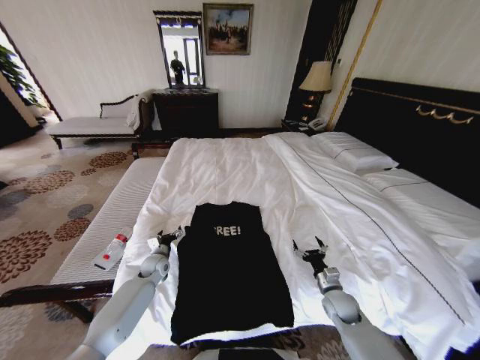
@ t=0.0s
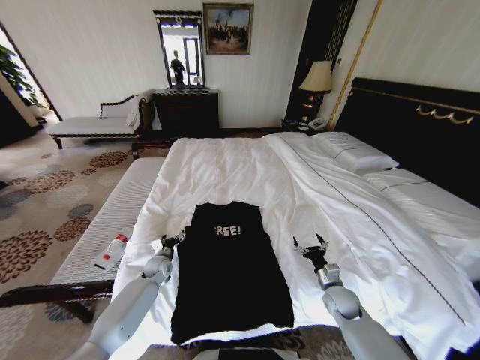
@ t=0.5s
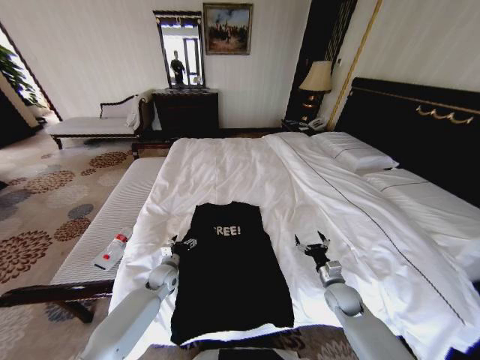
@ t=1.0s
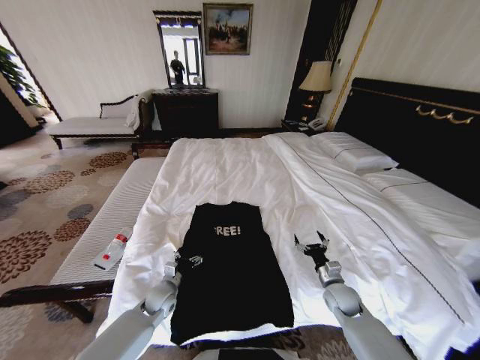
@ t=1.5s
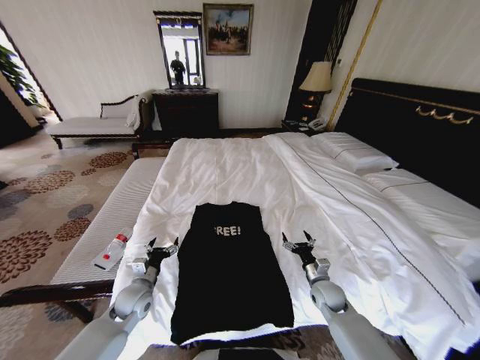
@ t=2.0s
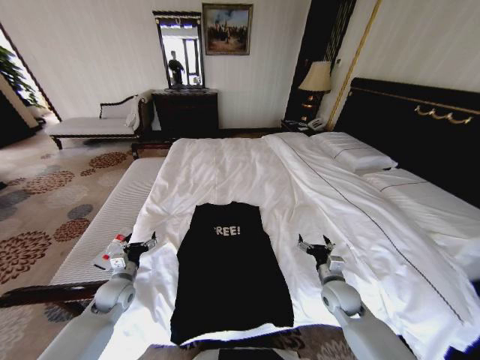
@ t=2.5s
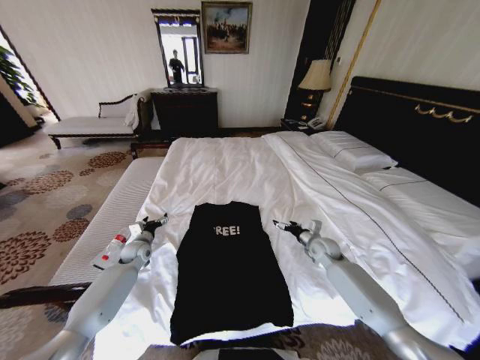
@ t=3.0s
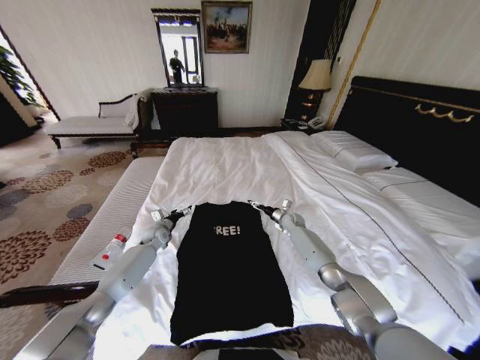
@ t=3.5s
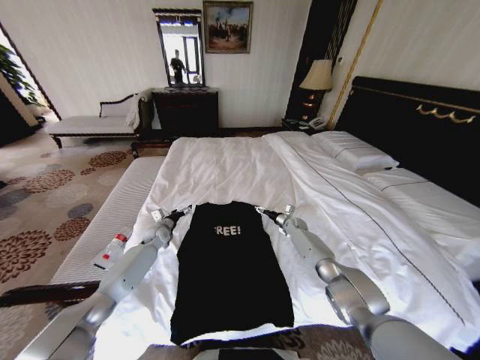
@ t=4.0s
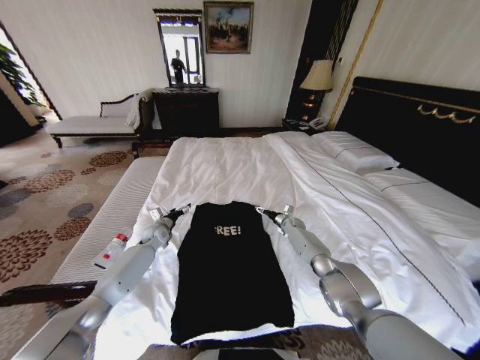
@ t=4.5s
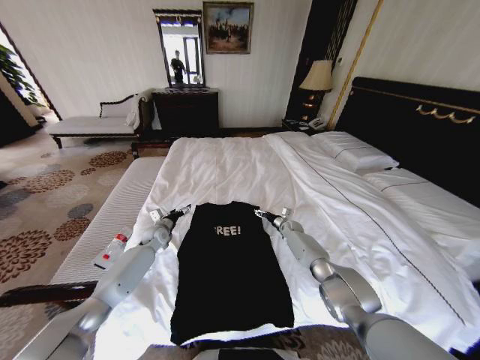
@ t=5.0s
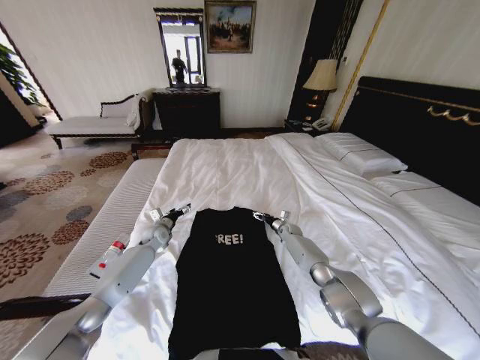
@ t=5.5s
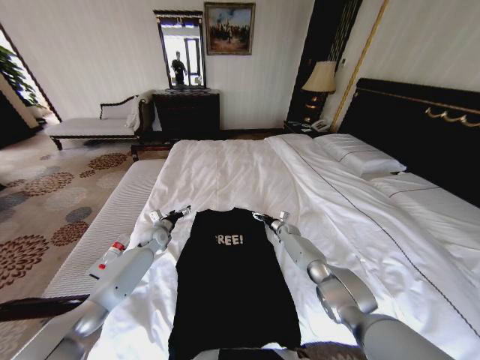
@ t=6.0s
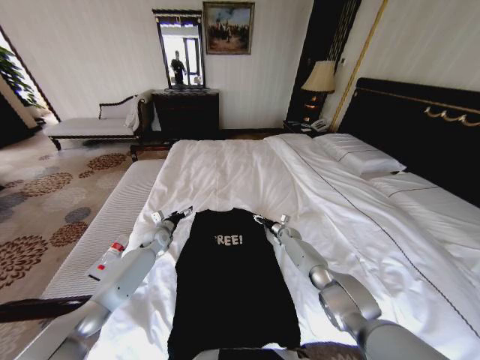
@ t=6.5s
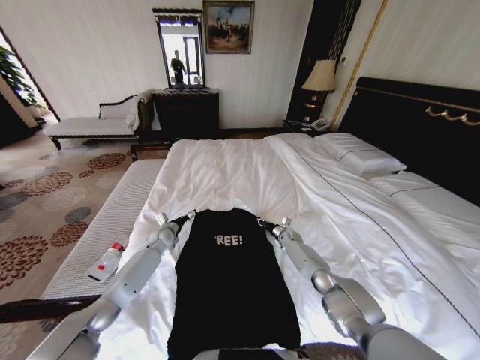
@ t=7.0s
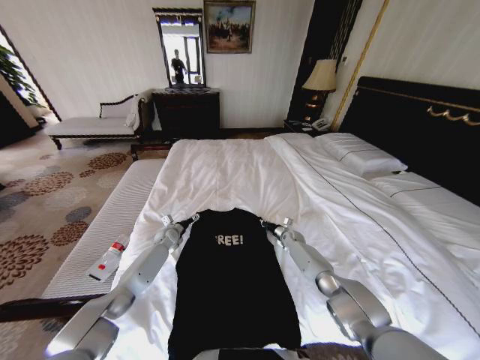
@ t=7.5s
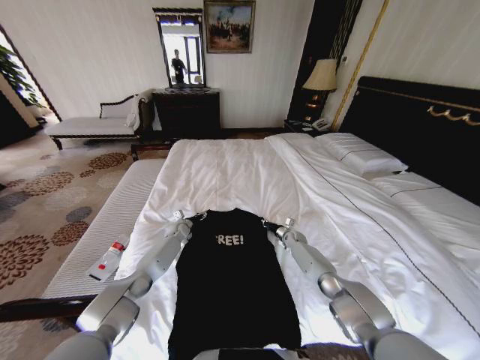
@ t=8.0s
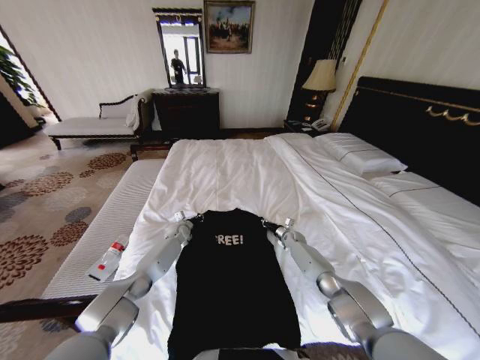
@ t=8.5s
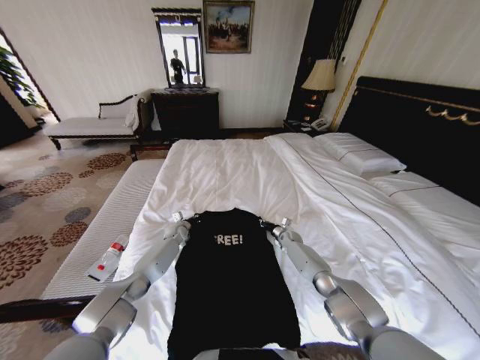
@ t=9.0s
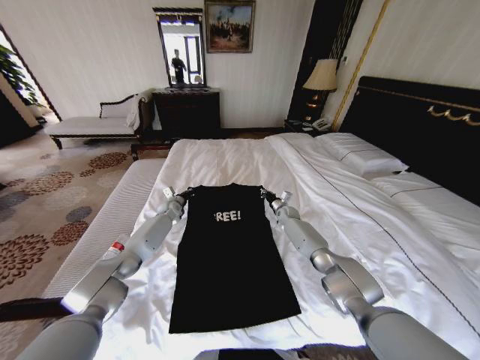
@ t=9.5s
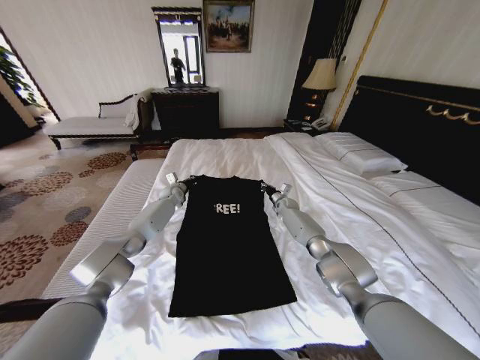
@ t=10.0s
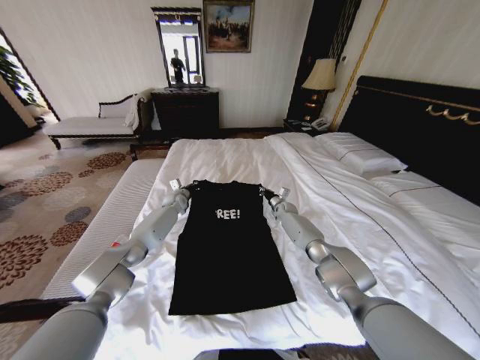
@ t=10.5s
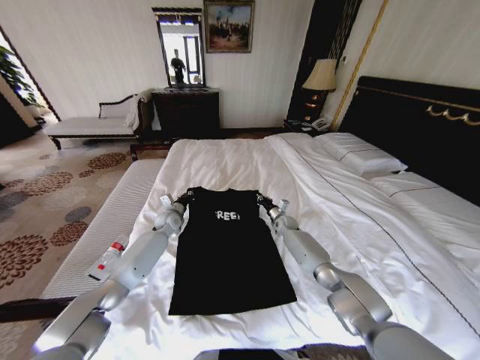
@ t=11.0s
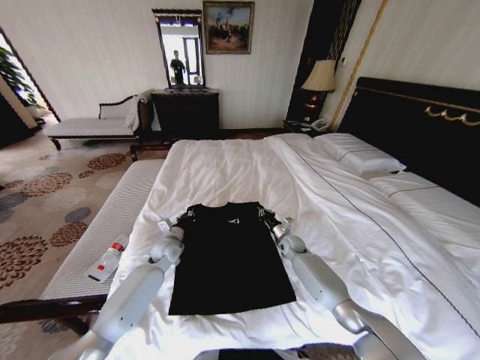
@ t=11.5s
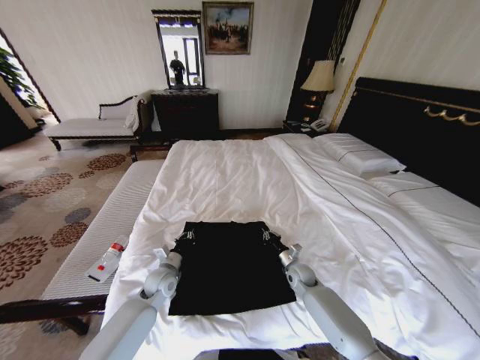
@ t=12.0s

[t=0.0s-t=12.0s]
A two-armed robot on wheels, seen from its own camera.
Task of the whole recording: Fold the clothes on the bed.
t=0.0s to t=2.0s: The left gripper moves backward and upward, about 15 cm.
t=2.0s to t=4.0s: The two grippers go roughly 25 cm forward.
t=6.0s to t=8.0s: The right gripper closes its fingers; the left gripper travels forward, downward and to the right by approximately 10 cm.
t=8.0s to t=10.0s: Both grippers travel together upward and forward, approximately 15 cm. The left gripper closes.
t=10.0s to t=12.0s: Both grippers move backward, approximately 30 cm.

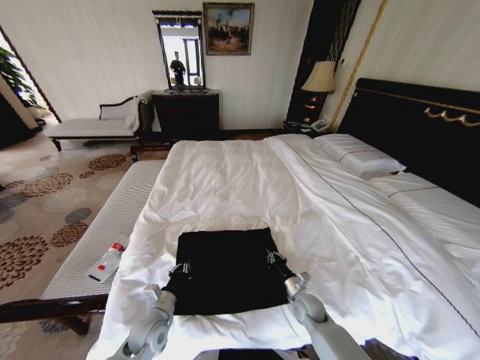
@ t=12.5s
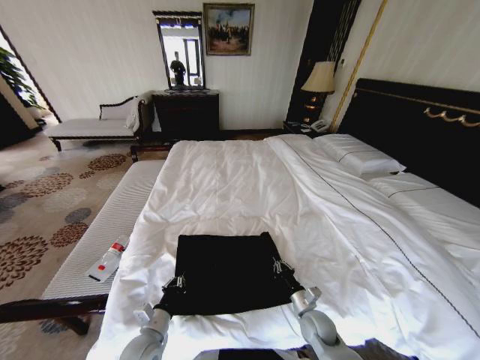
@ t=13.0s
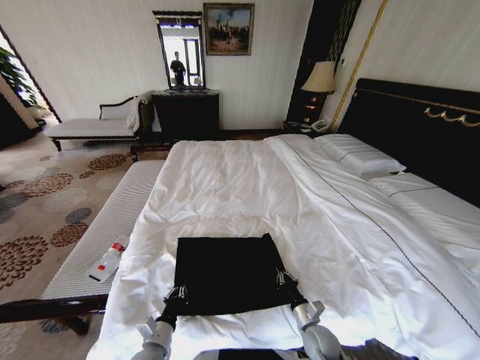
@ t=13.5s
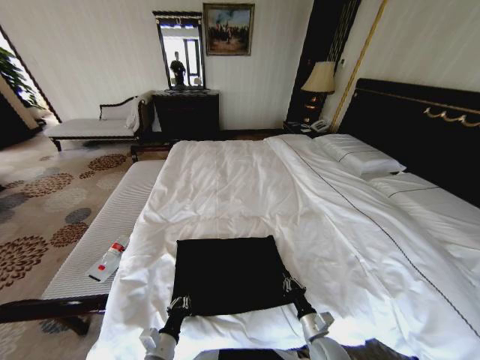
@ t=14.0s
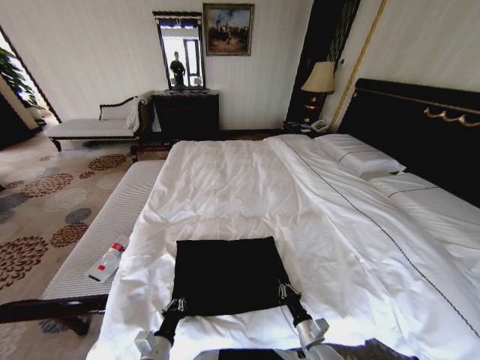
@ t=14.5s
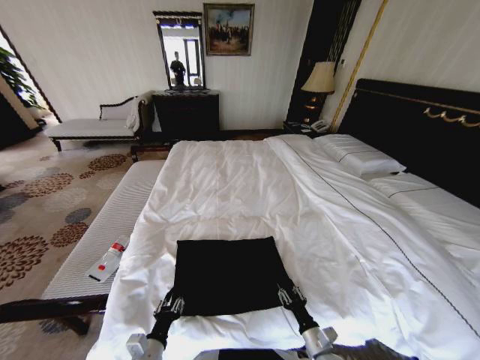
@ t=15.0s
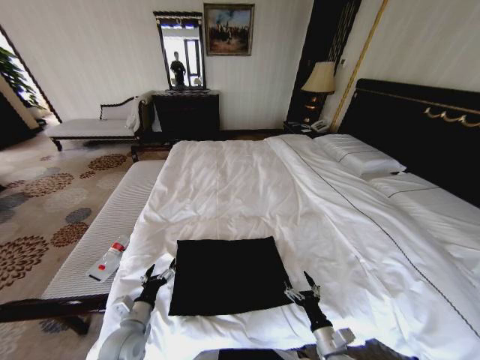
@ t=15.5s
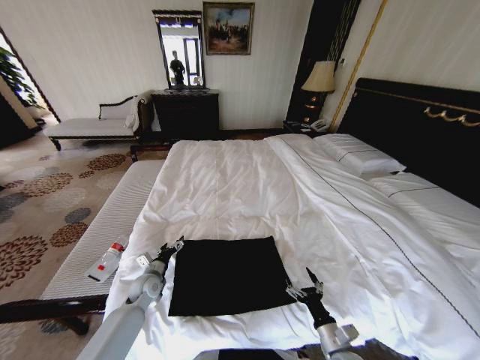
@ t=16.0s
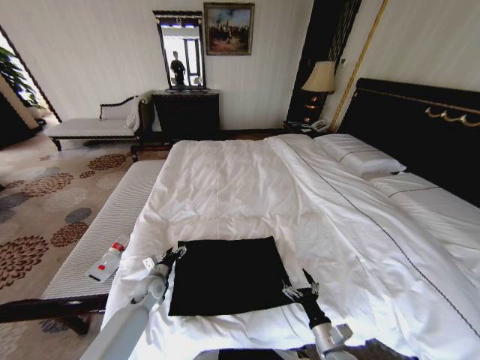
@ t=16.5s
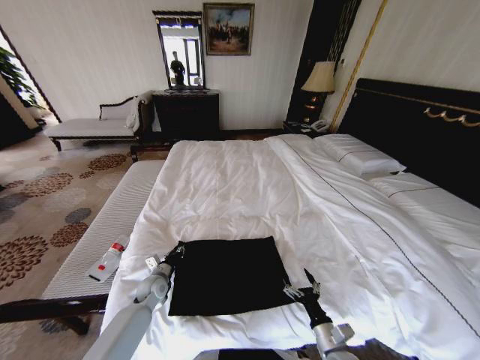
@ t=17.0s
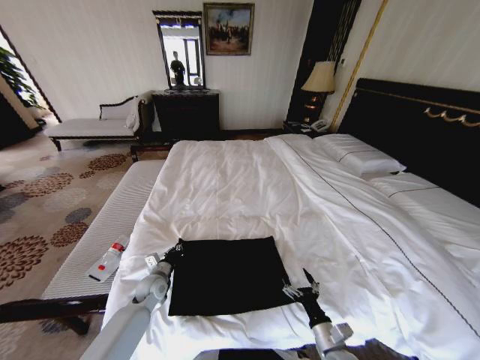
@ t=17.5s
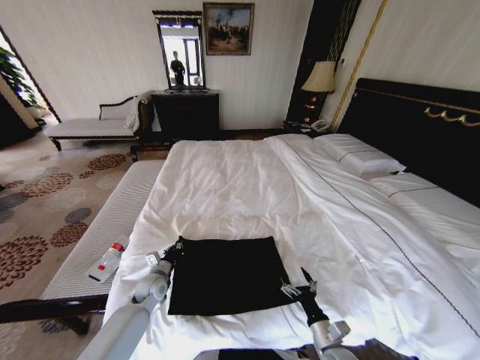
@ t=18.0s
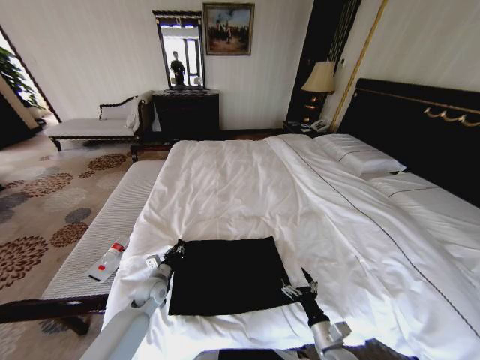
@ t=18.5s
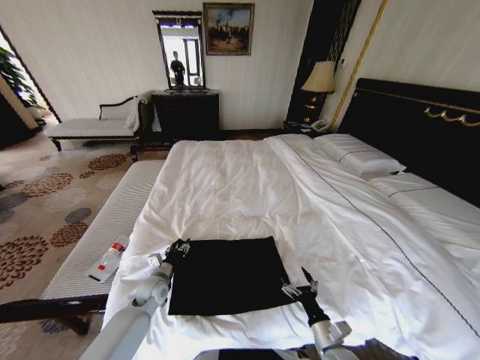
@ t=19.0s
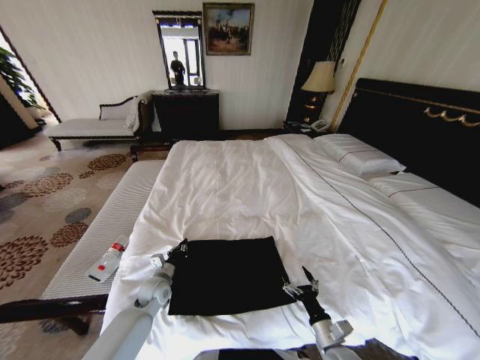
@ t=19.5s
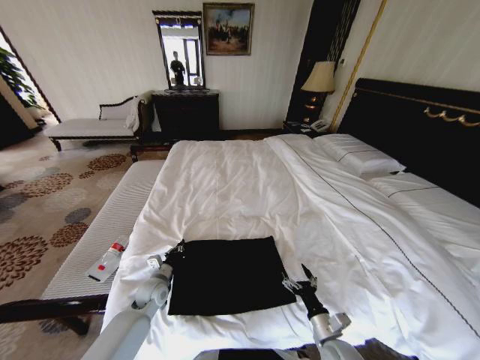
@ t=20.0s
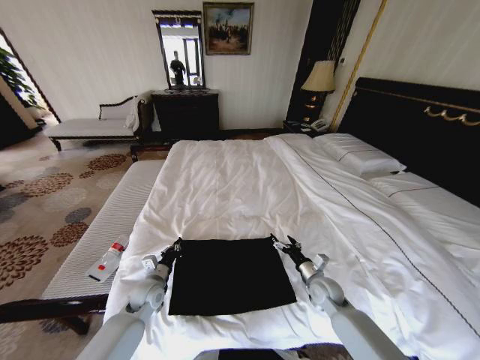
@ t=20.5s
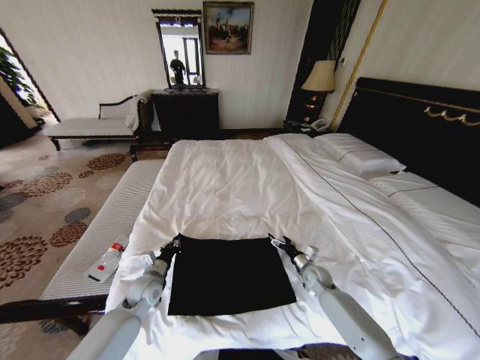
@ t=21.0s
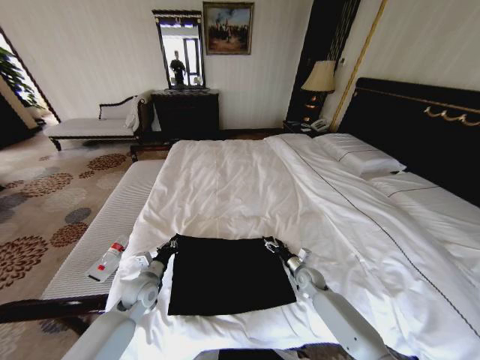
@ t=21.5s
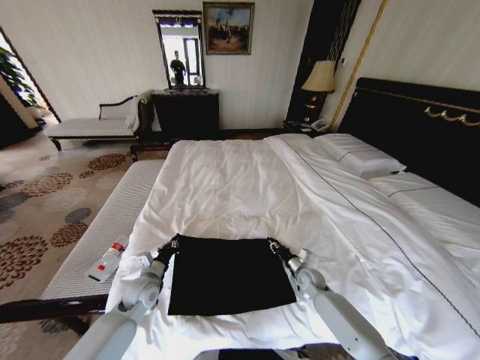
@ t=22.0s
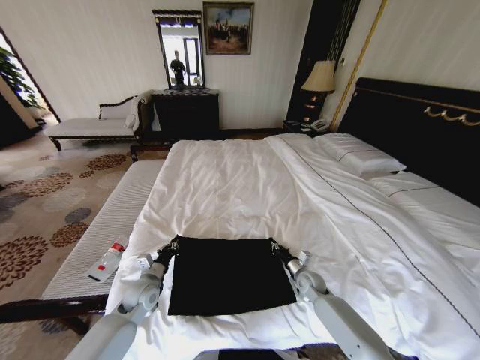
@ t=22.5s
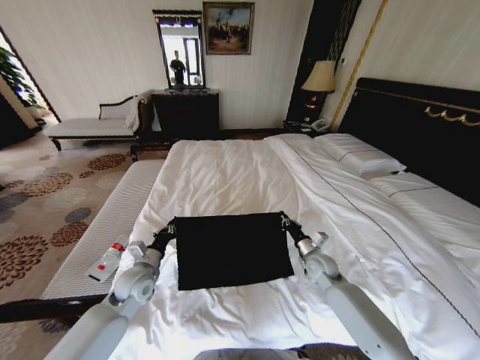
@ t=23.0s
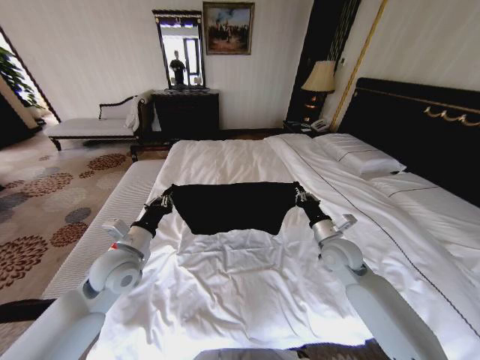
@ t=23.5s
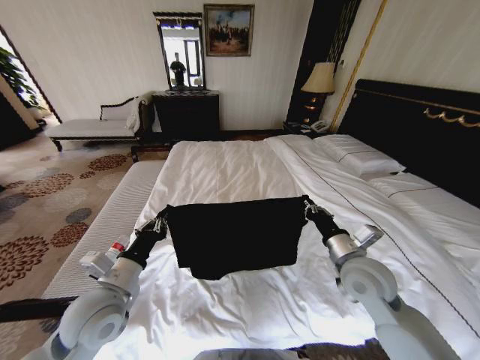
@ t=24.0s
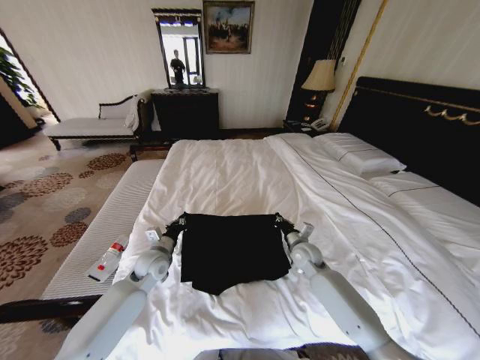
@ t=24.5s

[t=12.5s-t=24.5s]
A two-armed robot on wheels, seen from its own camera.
Task of the whole recording: Fold the clothes on the bed.
t=12.5s to t=14.5s: The two grippers go about 10 cm backward.
t=14.5s to t=16.5s: The right gripper travels upward by some 5 cm, and opens its fingers. The left gripper is displaced forward by about 25 cm, and opens.
t=16.5s to t=18.5s: The left gripper closes up.
t=18.5s to t=20.5s: The left gripper opens and closes again; the right gripper goes some 20 cm forward.
t=20.5s to t=22.5s: The right gripper is displaced downward by about 5 cm, and closes up.
t=22.5s to t=24.5s: The right gripper goes about 10 cm upward; the left gripper goes approximately 5 cm forward, and travels upward and back again, roughly 20 cm each way.

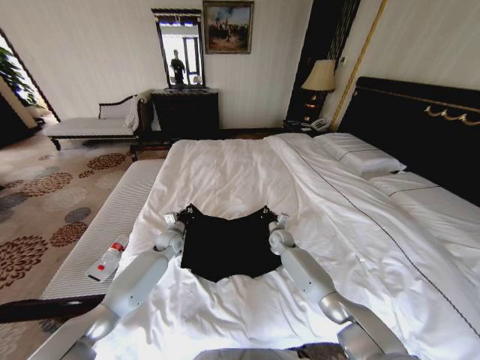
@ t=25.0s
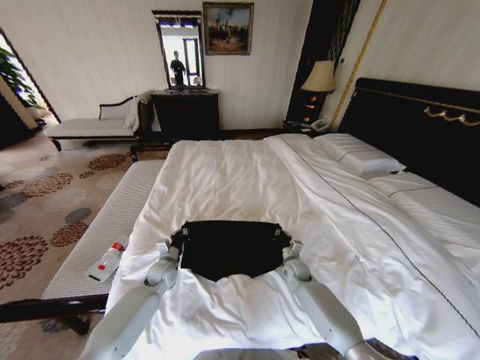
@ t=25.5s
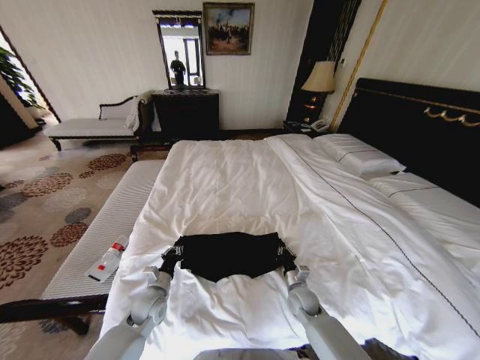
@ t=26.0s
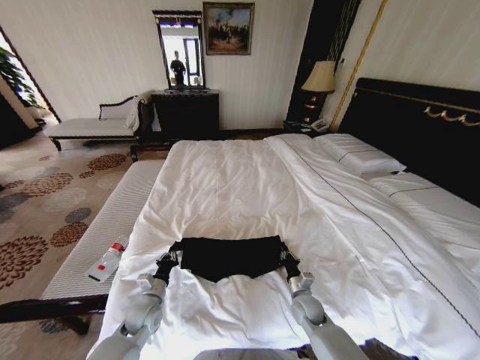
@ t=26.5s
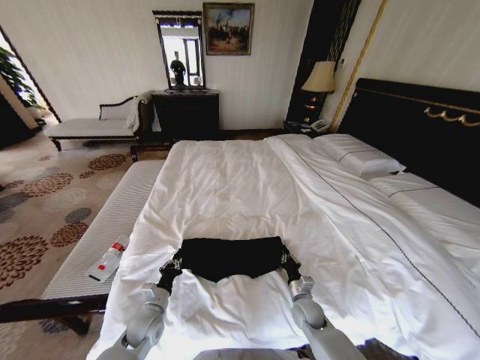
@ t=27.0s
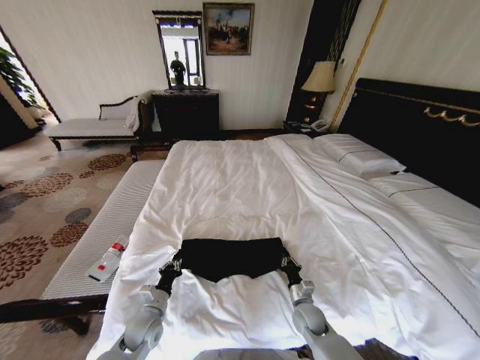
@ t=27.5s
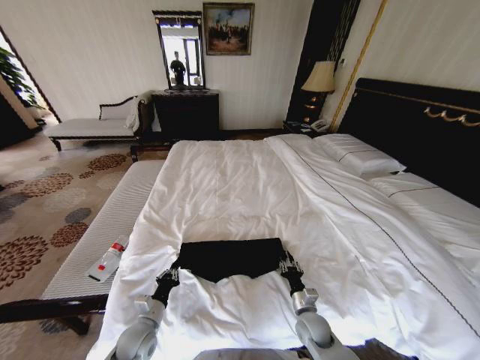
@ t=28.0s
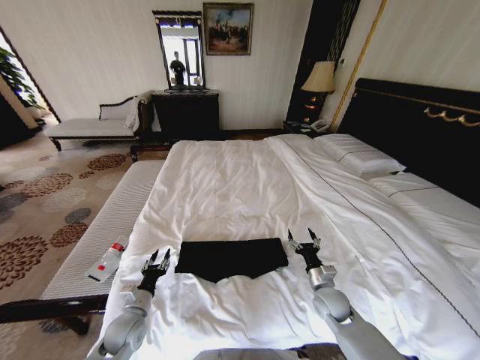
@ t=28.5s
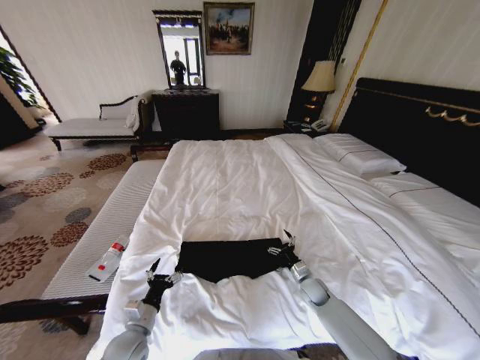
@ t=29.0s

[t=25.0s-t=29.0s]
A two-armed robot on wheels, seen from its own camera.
Task of the whole recording: Fold the clothes on the bed.
t=25.0s to t=27.0s: Both grippers move backward, some 25 cm.
t=27.0s to t=29.0s: The right gripper moves forward, some 5 cm, and opens its fingers, while the left gripper travels backward by approximately 5 cm, and opens up.
